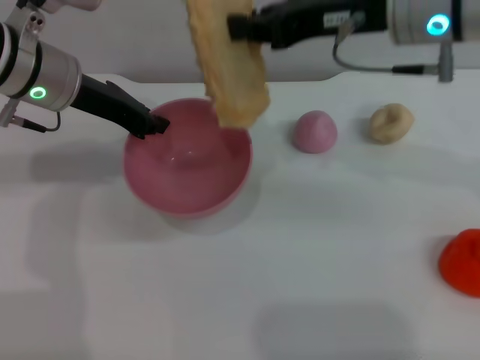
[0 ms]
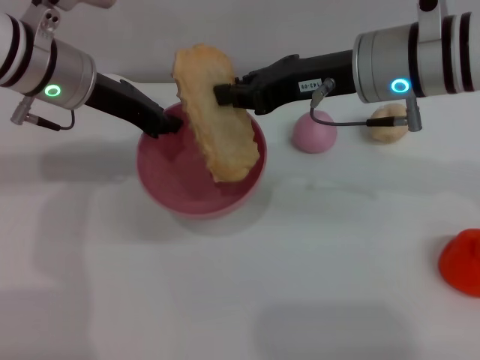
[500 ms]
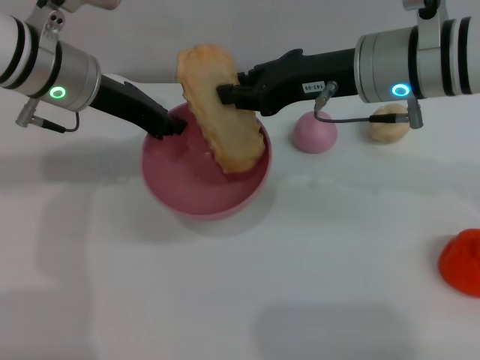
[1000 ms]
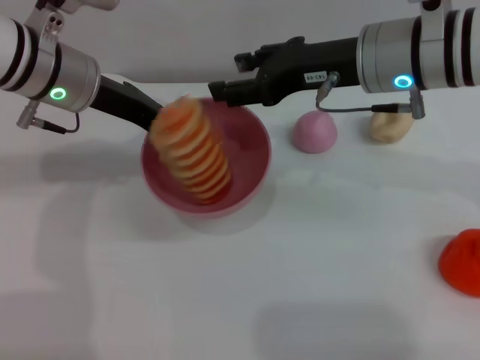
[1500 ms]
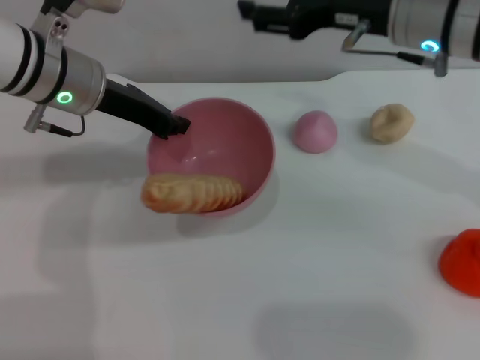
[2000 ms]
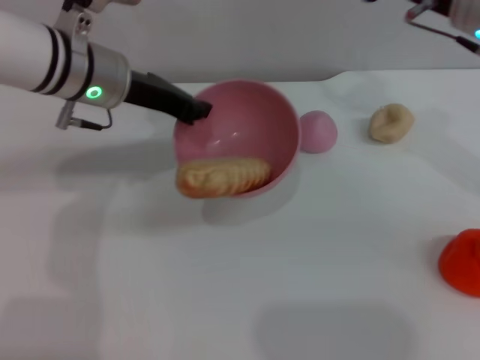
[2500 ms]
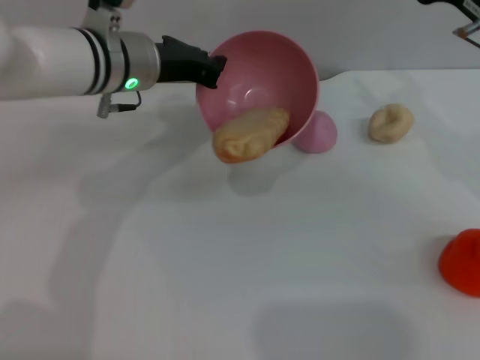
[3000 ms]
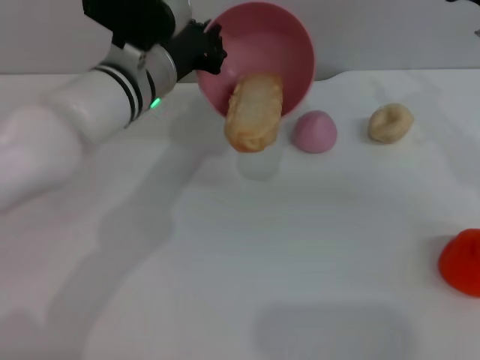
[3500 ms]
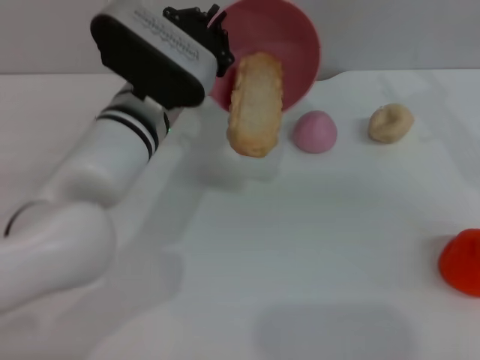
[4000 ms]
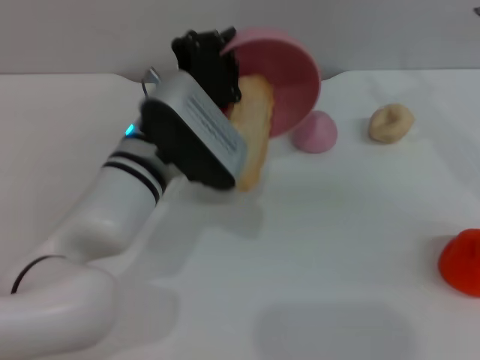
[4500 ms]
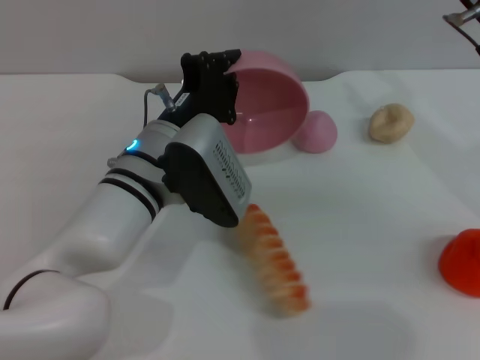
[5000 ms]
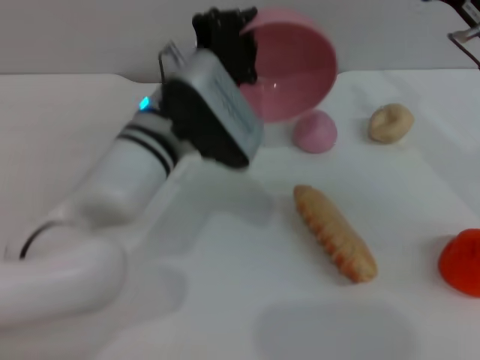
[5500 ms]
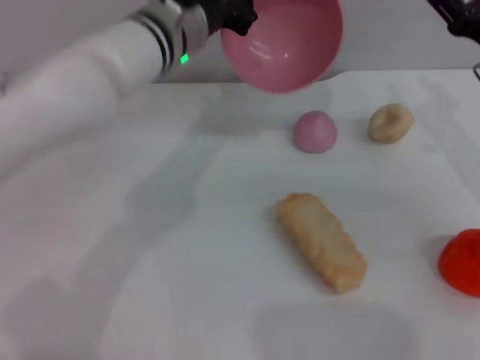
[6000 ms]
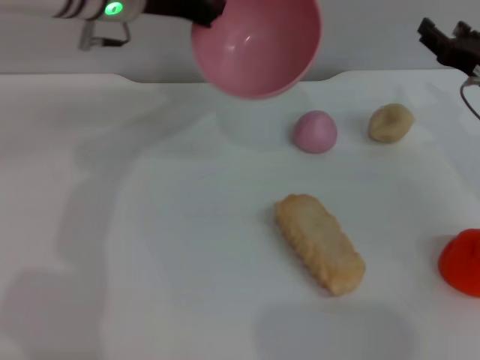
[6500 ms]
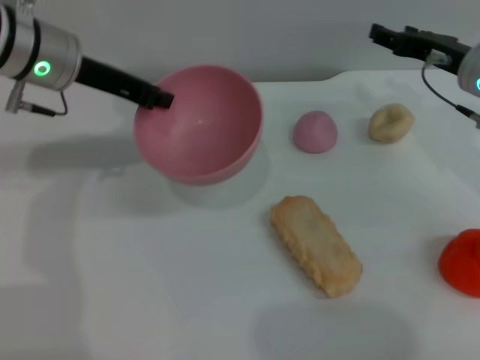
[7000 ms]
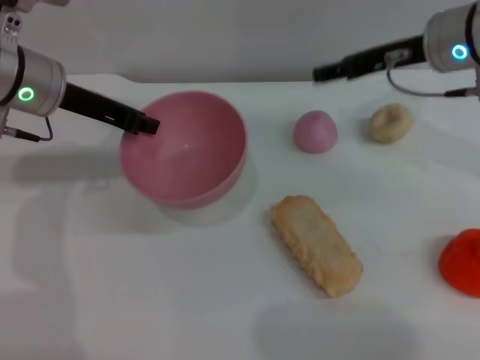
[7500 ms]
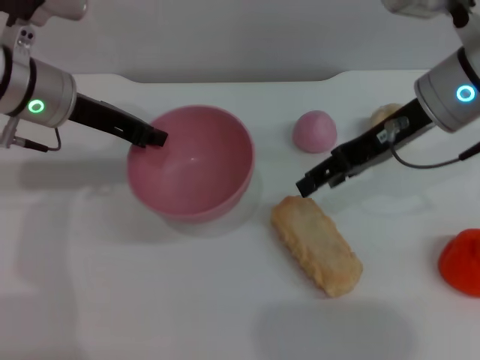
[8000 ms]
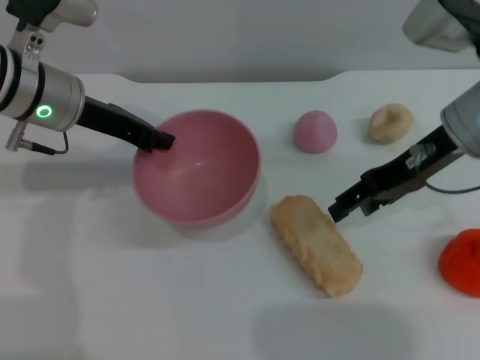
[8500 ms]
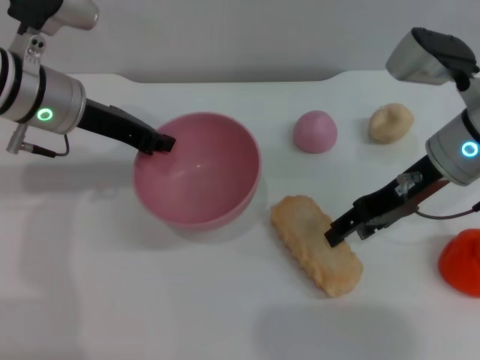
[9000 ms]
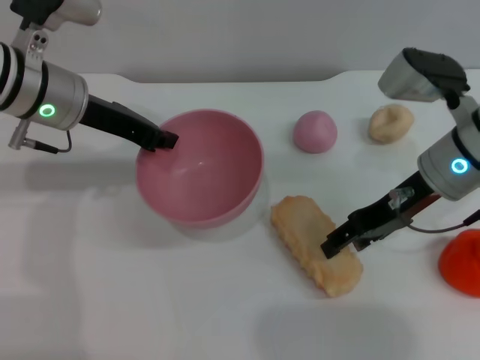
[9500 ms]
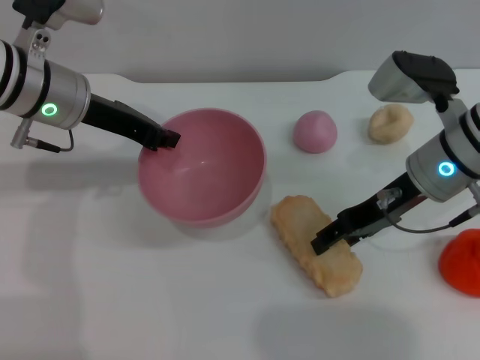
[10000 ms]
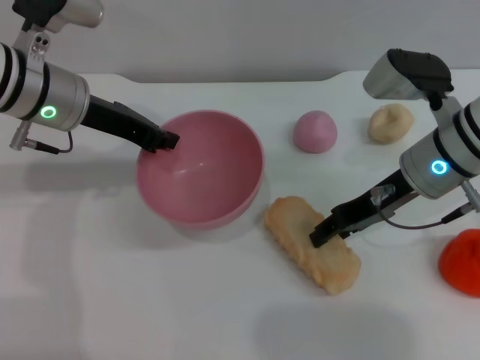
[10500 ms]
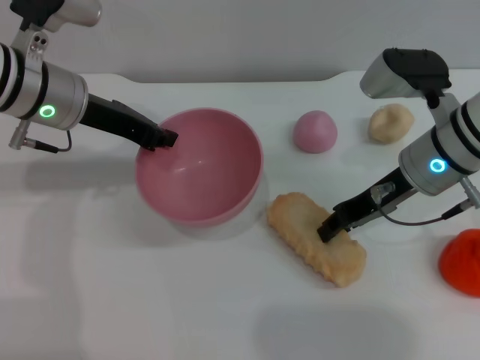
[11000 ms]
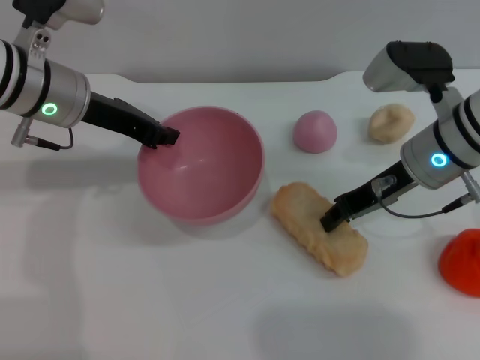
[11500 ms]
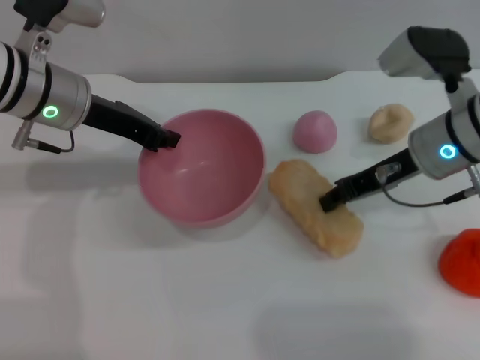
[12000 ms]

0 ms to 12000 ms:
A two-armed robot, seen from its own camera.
Task of the whole recording: put the bread into the pink bowl and pour it out repeatedly.
Step, 0 ms to 1500 ms: Place the bread into the bowl.
Step, 2000 ms to 5500 ms: Pour the bread out of the bowl.
0 ms to 2000 ms: The right gripper opens.
2000 ms to 4000 ms: The left gripper goes roughly 10 cm to the right and downward. Meanwhile the right gripper moves to the right, some 10 cm.
4000 ms to 6000 ms: The left gripper goes approximately 5 cm forward. The right gripper heads downward, covering about 5 cm.
6000 ms to 8000 ms: The left gripper heads to the left, covering some 15 cm. Meanwhile the right gripper travels to the left and upward by some 10 cm.
8000 ms to 10000 ms: The right gripper travels downward by roughly 5 cm.
10000 ms to 12000 ms: The right gripper closes its fingers.

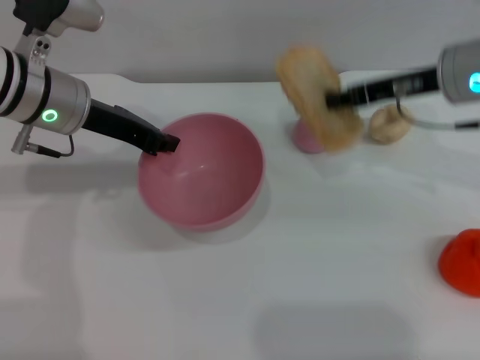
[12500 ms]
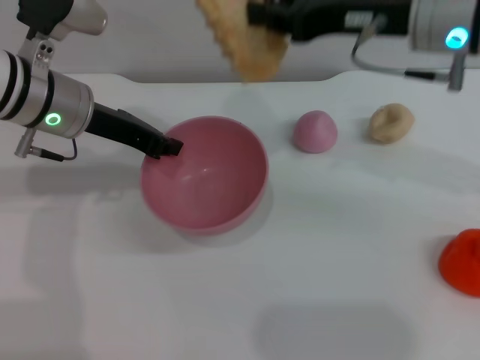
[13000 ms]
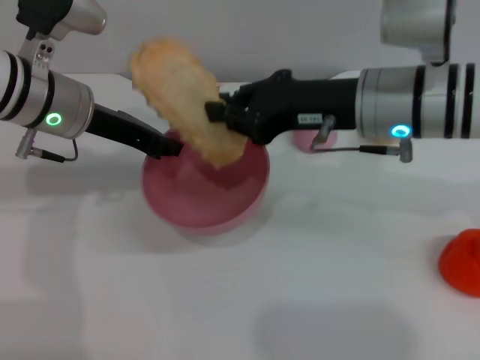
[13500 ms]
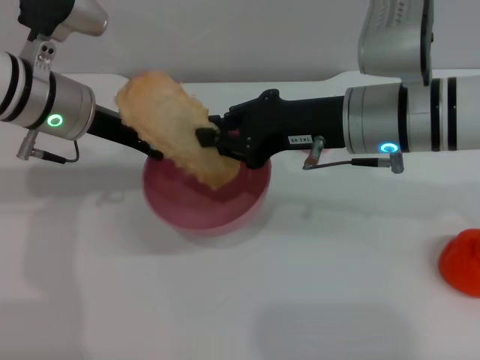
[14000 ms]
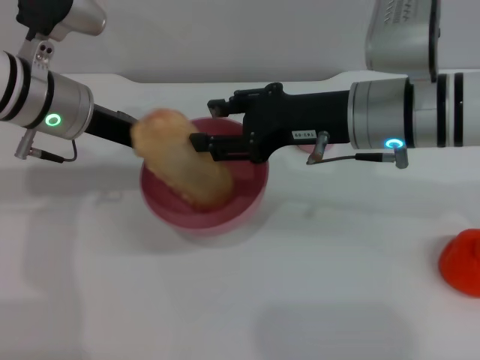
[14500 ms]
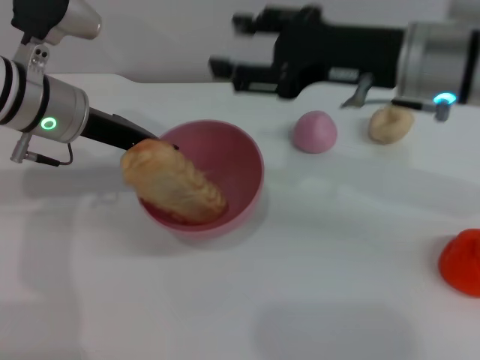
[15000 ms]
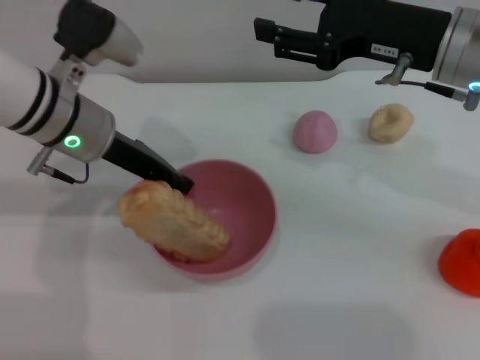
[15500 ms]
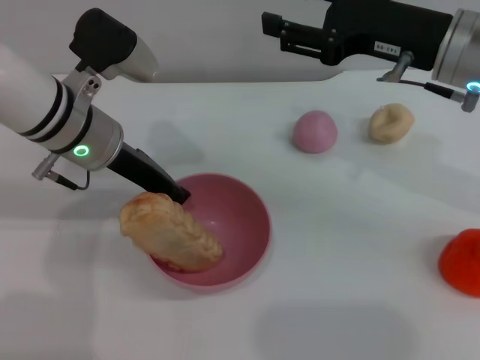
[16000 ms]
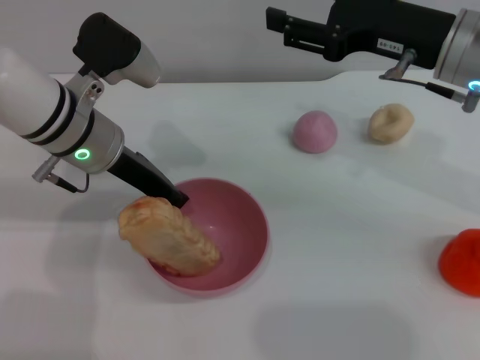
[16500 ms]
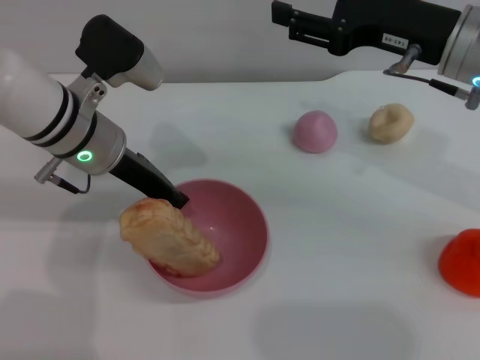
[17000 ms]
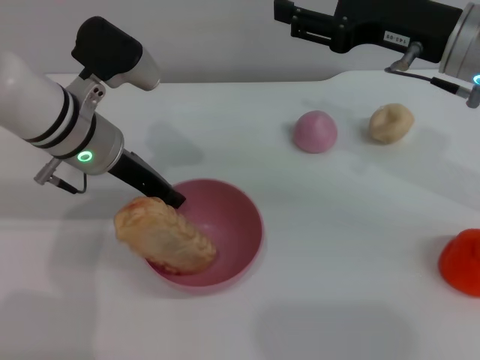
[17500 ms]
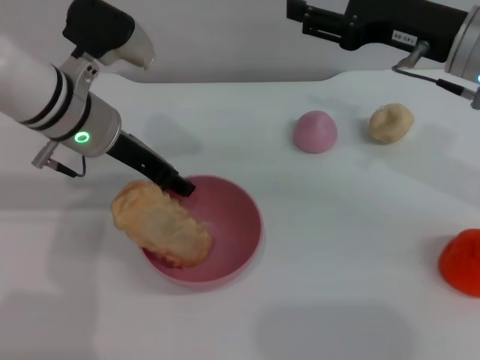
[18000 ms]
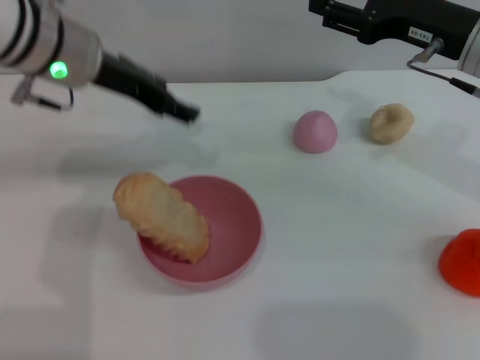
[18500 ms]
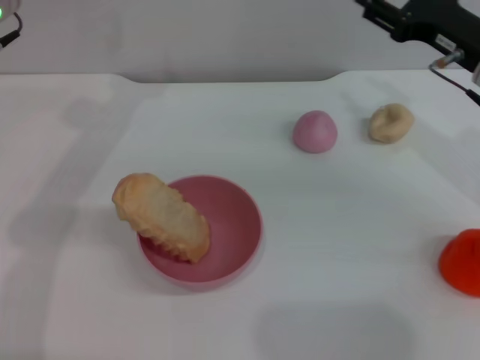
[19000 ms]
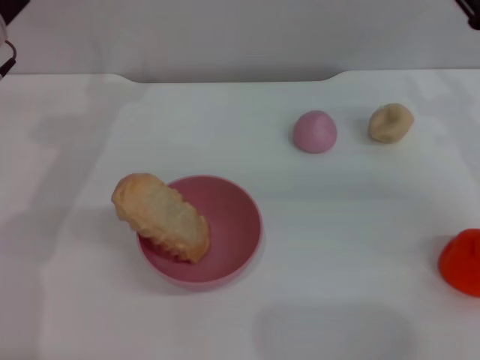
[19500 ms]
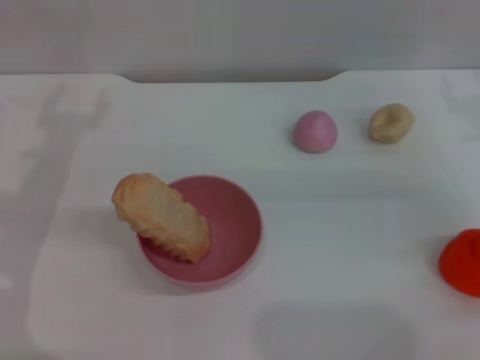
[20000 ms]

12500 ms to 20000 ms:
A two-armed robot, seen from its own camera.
Task of the whole recording: put the bread into the pink bowl and pour it out repeatedly.
Step, 12500 ms to 15000 ms: Place the bread into the bowl.
Step, 15500 ms to 18500 ms: Place the bowl on the table.
12500 ms to 14500 ms: The right gripper moves to the left, roughly 10 cm, and opens up.
14500 ms to 16500 ms: The right gripper goes about 5 cm to the right, and opens up.
16500 ms to 18000 ms: The left gripper opens up.
18000 ms to 20000 ms: The right gripper is displaced to the right and downward by approximately 15 cm. Meanwhile the left gripper heads to the left and backward, covering roughly 15 cm, and opens.

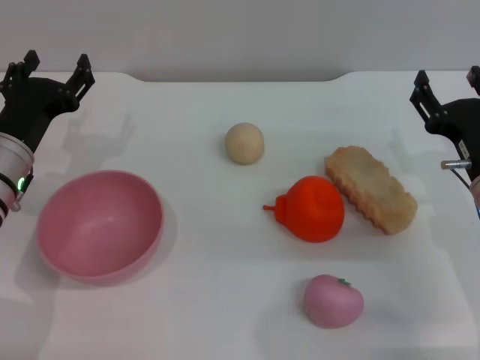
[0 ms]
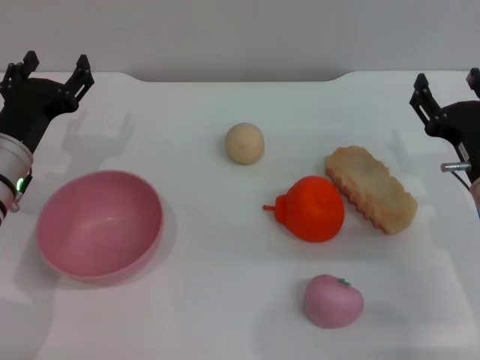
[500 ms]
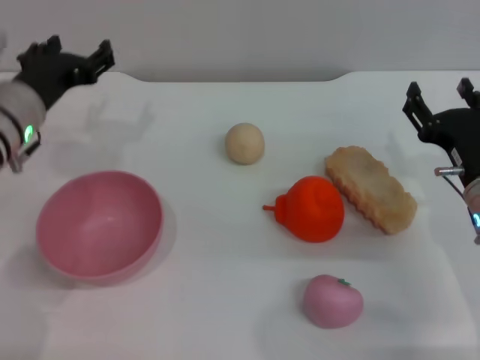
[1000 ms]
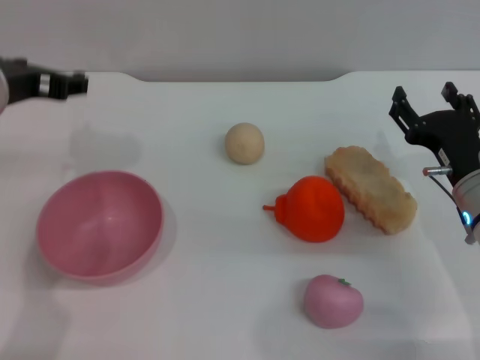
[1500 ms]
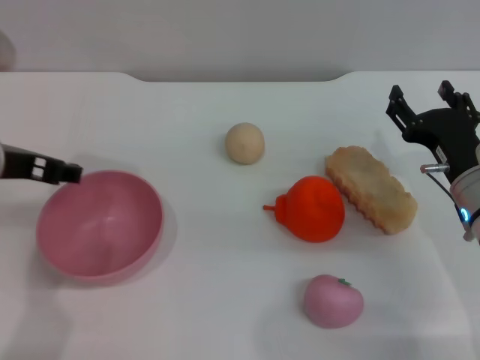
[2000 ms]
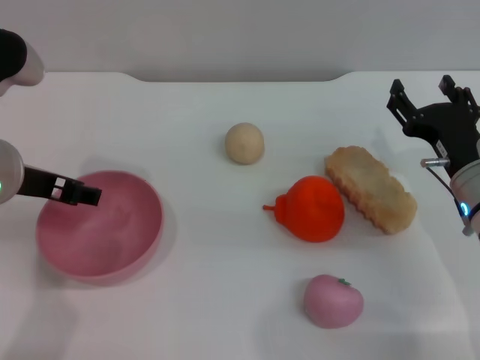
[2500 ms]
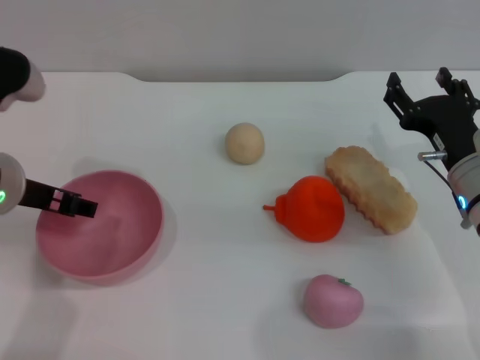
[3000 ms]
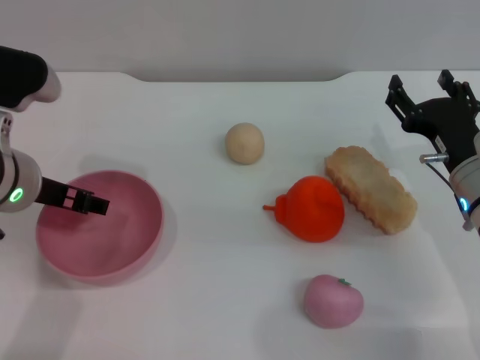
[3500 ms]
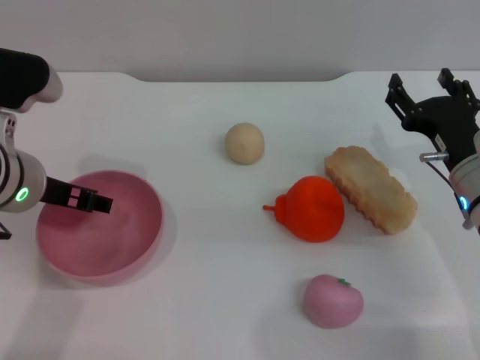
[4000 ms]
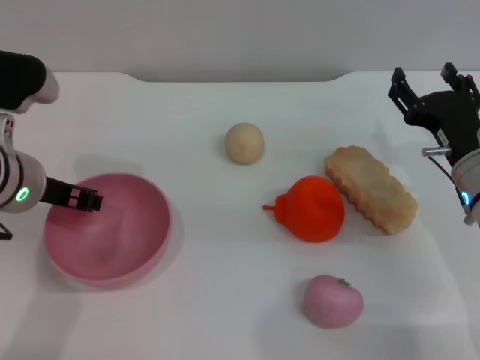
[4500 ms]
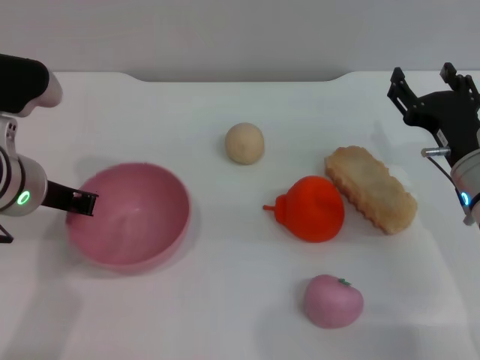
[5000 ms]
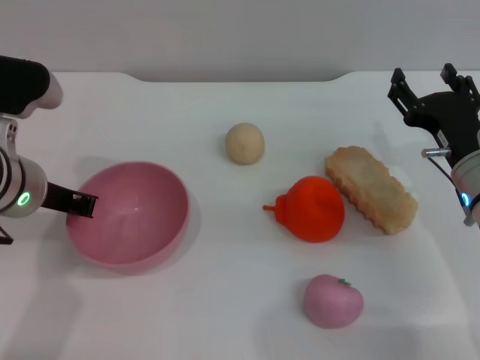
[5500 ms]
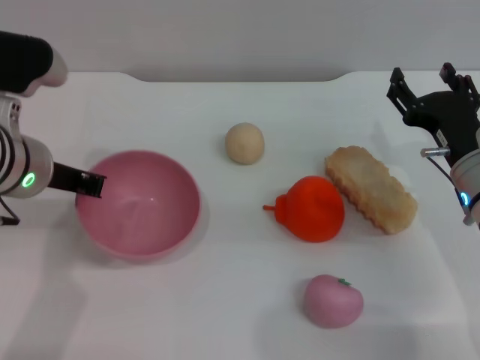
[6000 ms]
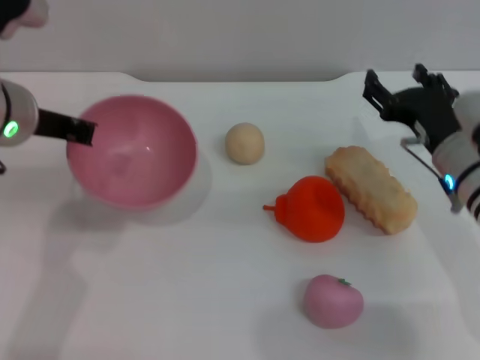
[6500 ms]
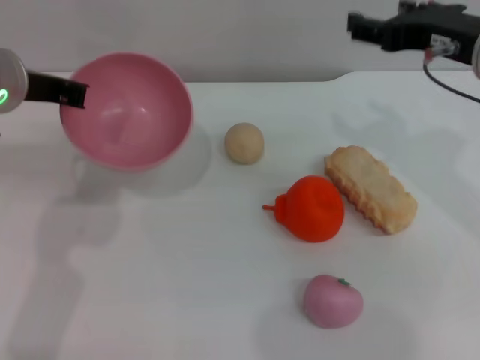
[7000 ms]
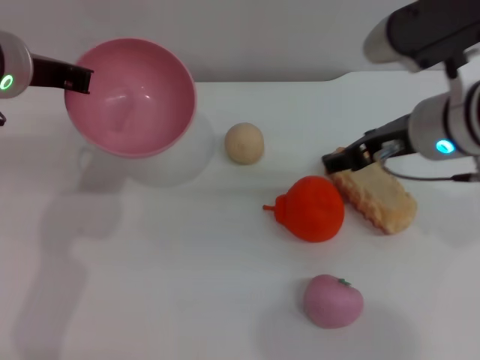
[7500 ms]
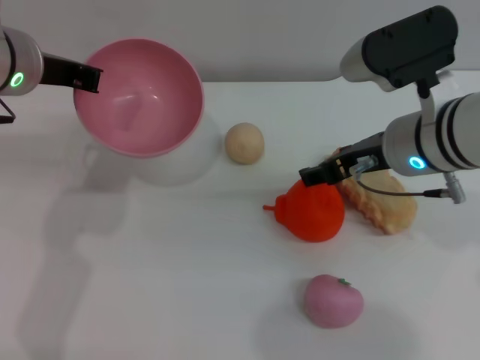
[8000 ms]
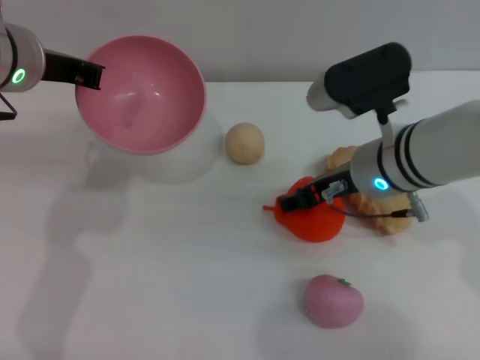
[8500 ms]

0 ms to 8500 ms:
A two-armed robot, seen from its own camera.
Task of the whole recording: put the orange into the pink bowl and pour it out repeatedly.
Step, 0 ms to 6500 ms: Pick up the bowl with the left gripper.
0 ms to 2000 ms: The left gripper shifts about 10 cm upward.
2000 ms to 4000 ms: There are only small adjustments of the grippers.
4000 ms to 6500 ms: The left gripper is displaced upward by about 5 cm, and closes up.
6500 ms to 8500 ms: The right gripper travels to the left by roughly 10 cm, and reaches some 15 cm upward, then returns.
